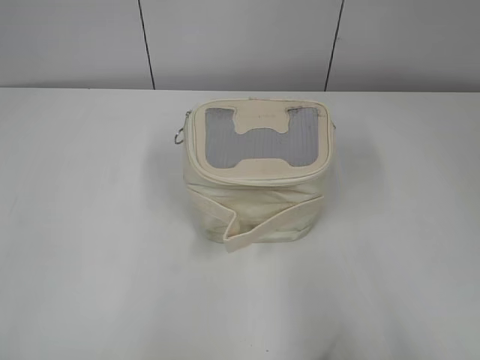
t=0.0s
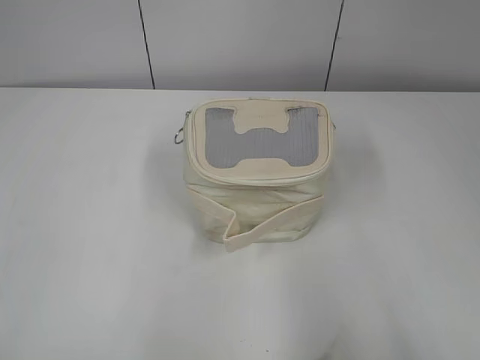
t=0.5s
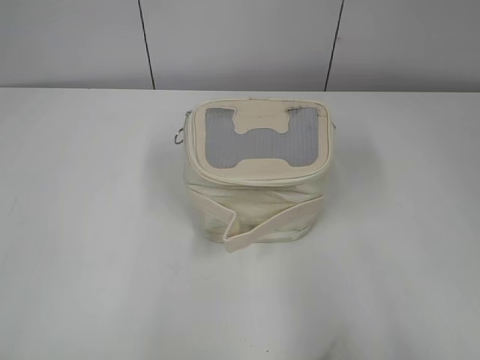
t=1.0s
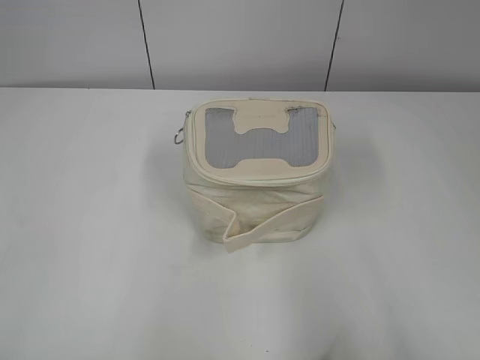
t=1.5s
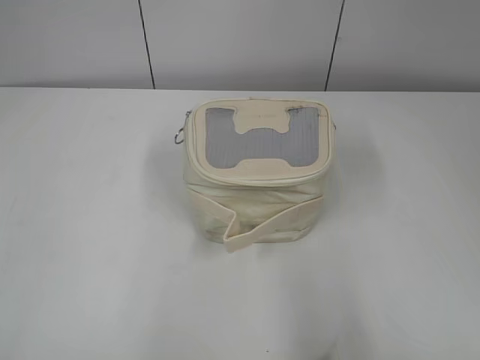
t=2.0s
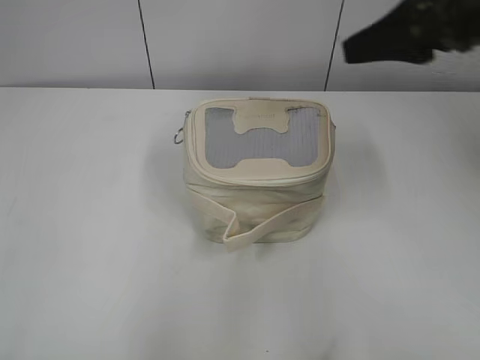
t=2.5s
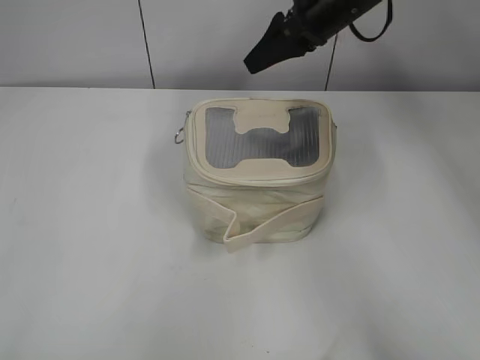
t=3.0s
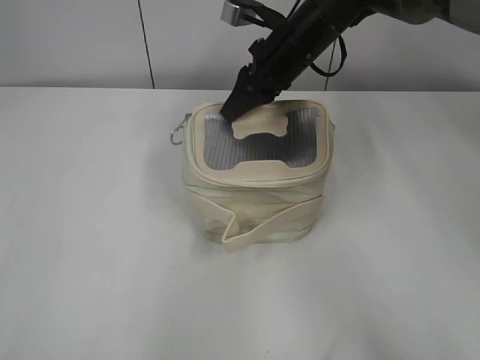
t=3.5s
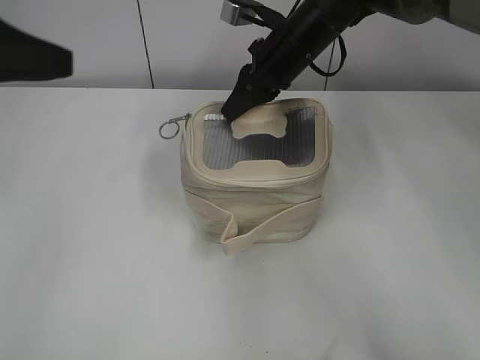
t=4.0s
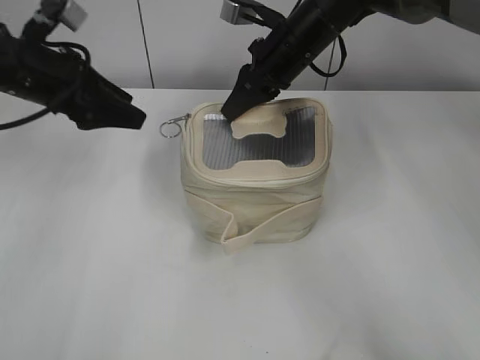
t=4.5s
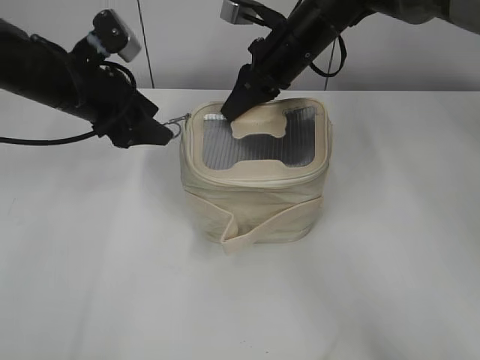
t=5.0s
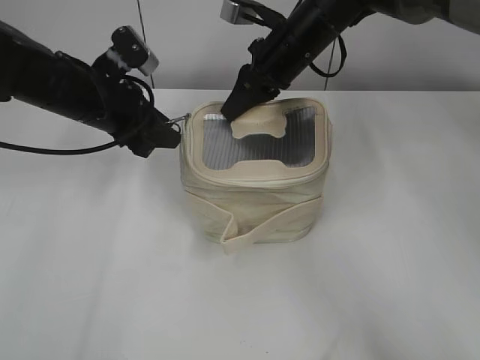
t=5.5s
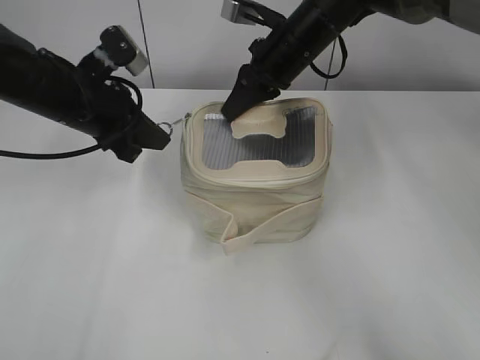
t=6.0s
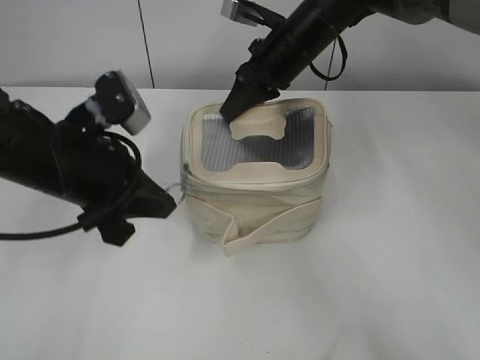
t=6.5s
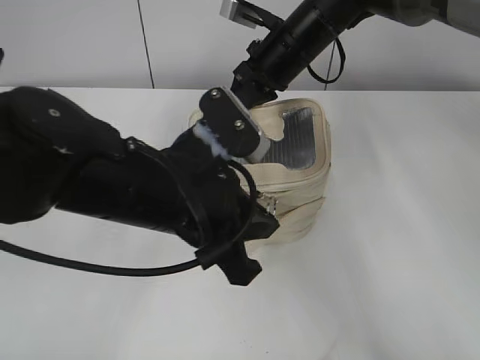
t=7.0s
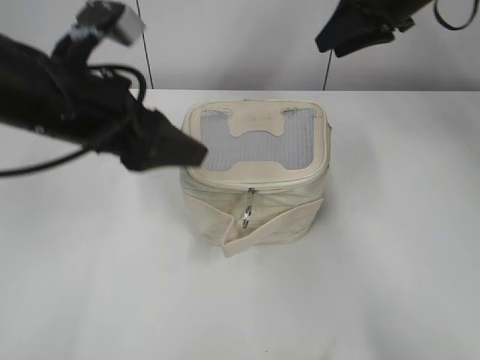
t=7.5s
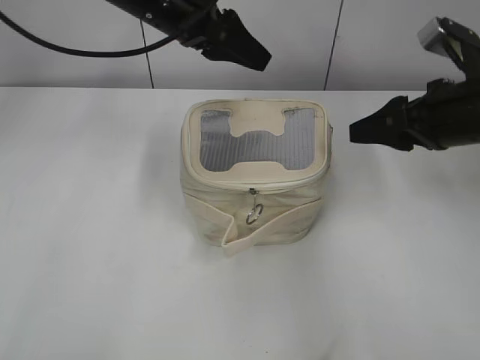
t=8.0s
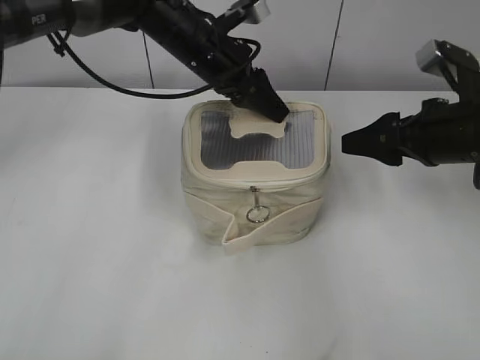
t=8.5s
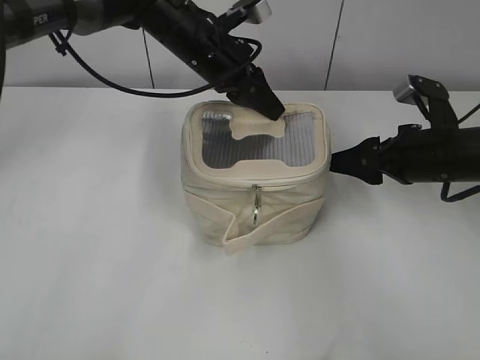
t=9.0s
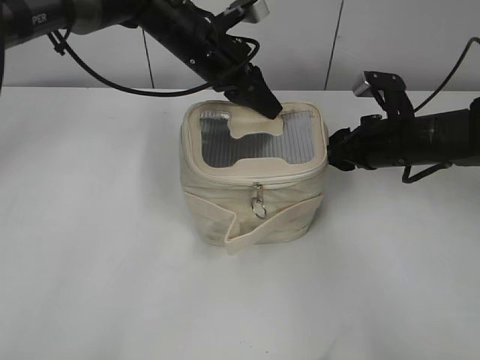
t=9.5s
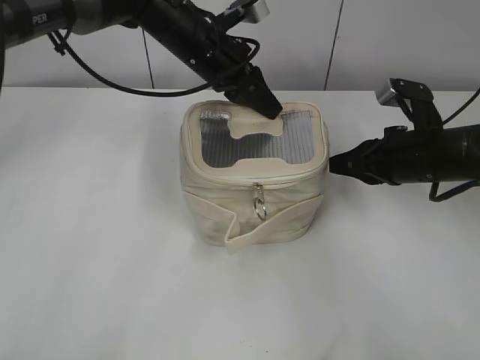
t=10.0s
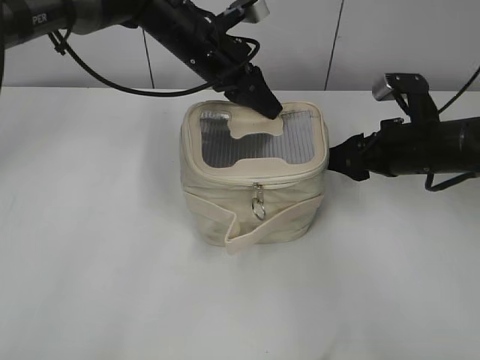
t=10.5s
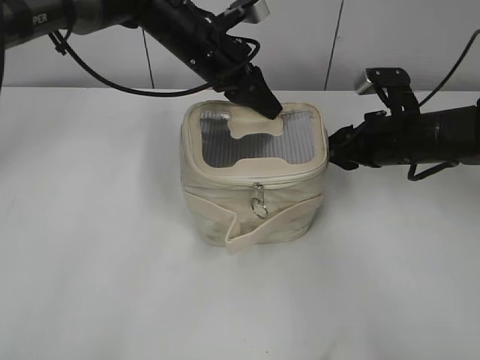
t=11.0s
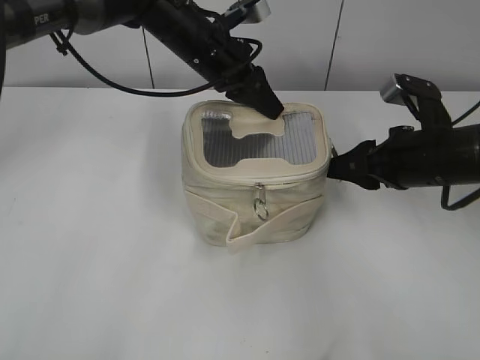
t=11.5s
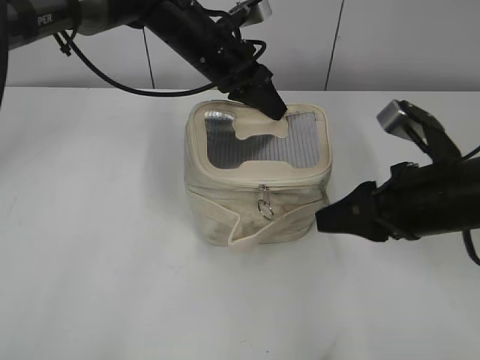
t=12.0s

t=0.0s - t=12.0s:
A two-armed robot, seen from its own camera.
Step, t=0.0s - t=7.0s: Zip up the bag with your left hand.
t=2.0s - t=4.0s: The right gripper is displaced forward and to the left by about 50 cm, and closes up, while the left gripper travels forward by approximately 20 cm.
t=4.0s - t=6.0s: The left gripper goes approximately 20 cm forward, downward and to the right, and closes.
t=6.0s - t=8.0s: The right gripper moves to the right and backward, about 20 cm, and opens its fingers; the left gripper goes about 15 cm to the right and upward, reaches approximately 15 cm backward, then returns, and opens its fingers.
t=8.0s - t=10.0s: The two grippers go roughly 5 cm downward. The left gripper closes up, while the right gripper closes.
t=10.0s - t=12.0s: The right gripper moves backward, some 10 cm, and opens up.

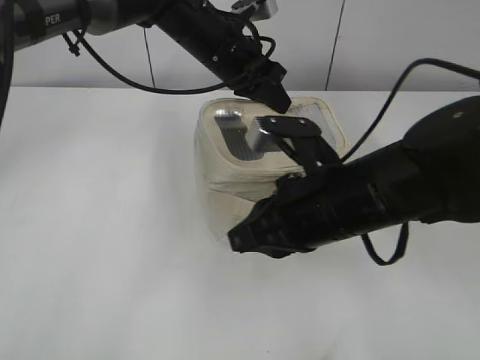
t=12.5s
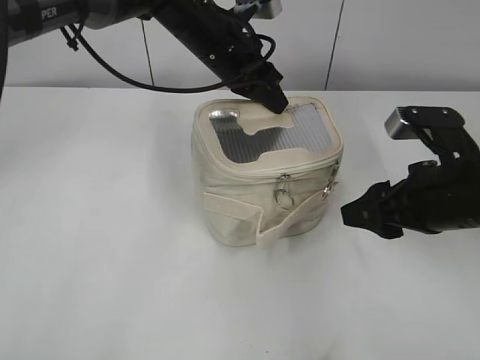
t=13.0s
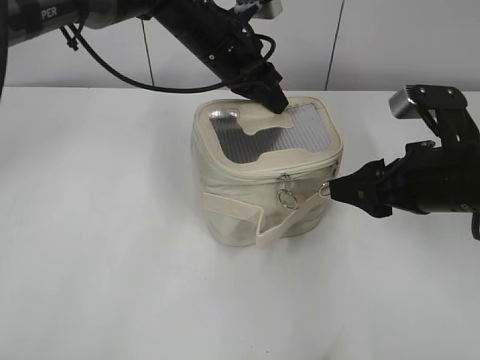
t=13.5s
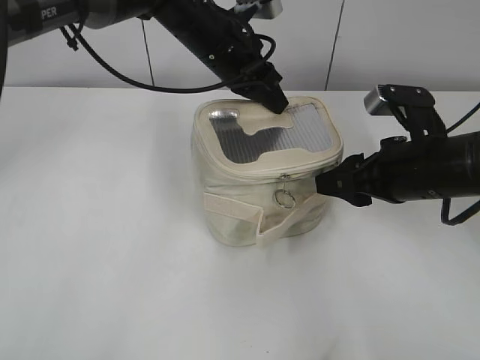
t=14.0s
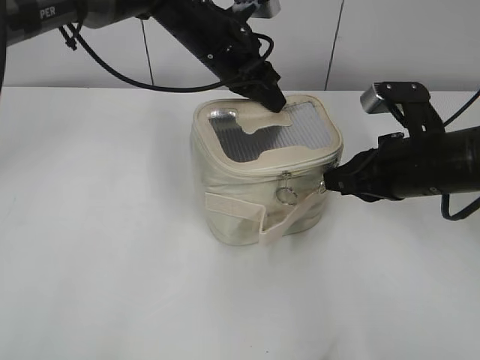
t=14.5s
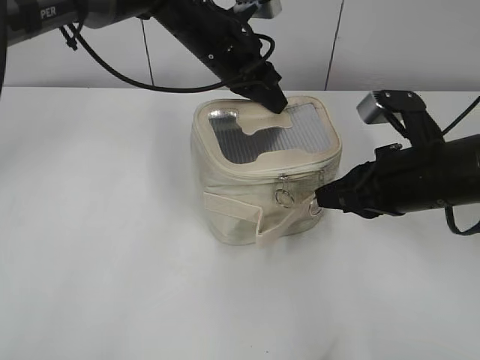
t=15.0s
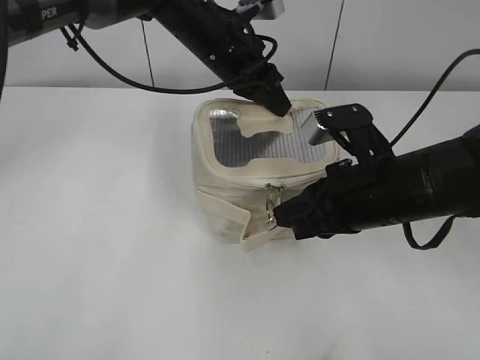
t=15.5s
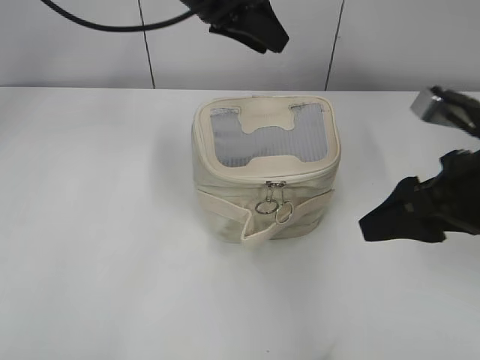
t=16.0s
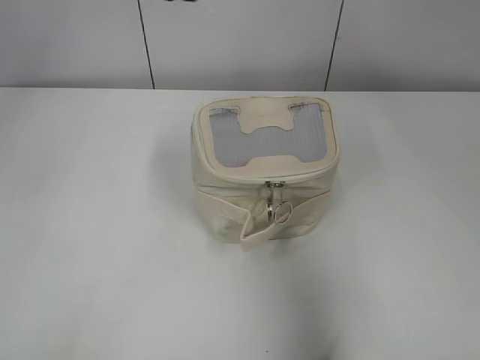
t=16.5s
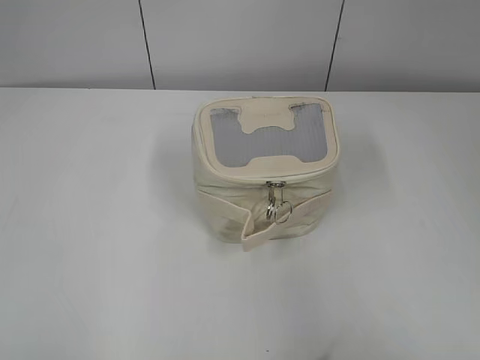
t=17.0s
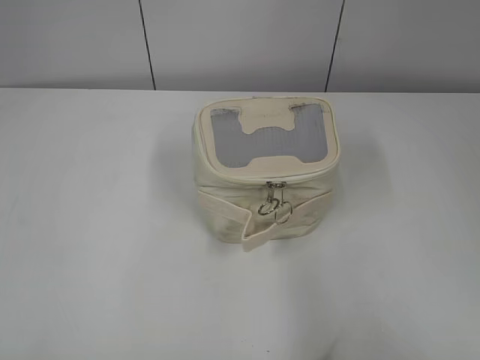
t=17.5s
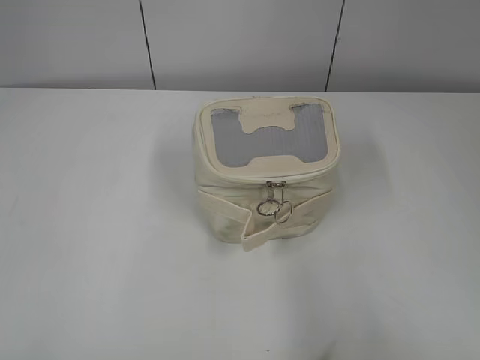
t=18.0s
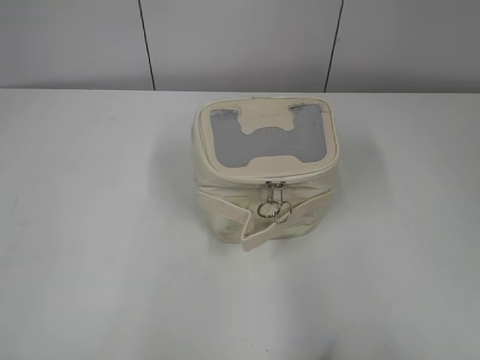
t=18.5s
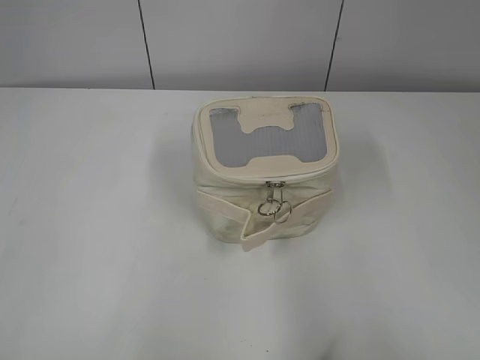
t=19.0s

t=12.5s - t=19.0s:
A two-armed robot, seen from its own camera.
Step, t=12.5s - t=15.5s: Zip up the bag with your right hand.
t=12.5s - t=14.5s: The right gripper goes some 10 cm to the right and forward, and opens and closes again.
t=14.5s - t=17.0s: The right gripper travels backward and upward by approximately 30 cm, and opens; the left gripper shifts about 50 cm backward and to the left, and opens.

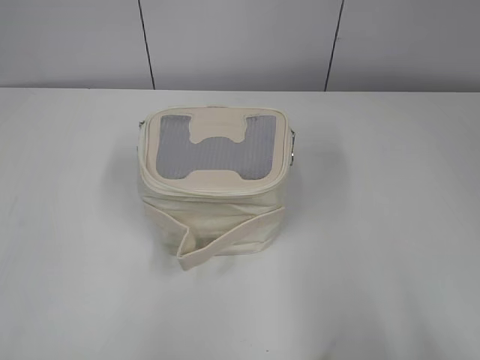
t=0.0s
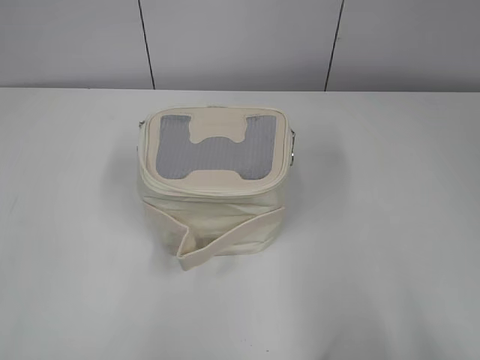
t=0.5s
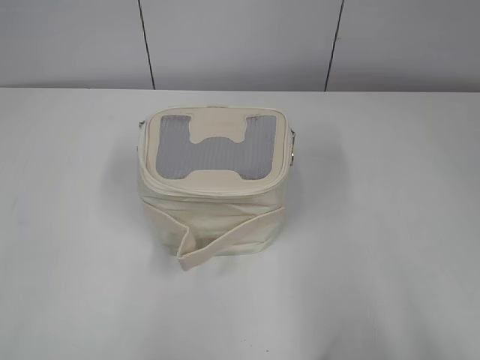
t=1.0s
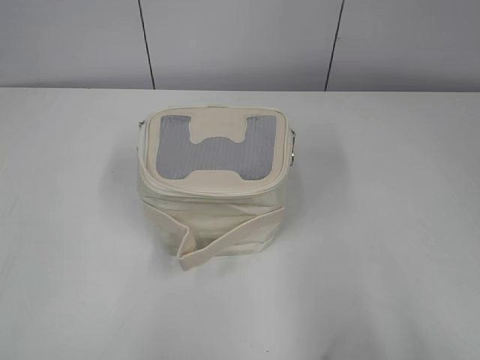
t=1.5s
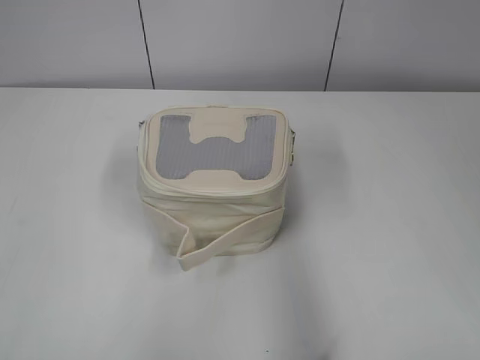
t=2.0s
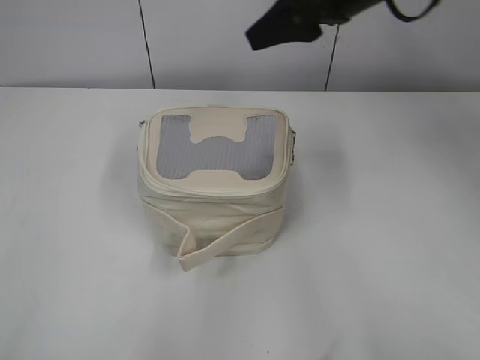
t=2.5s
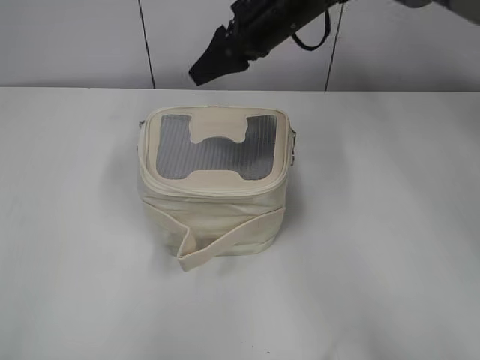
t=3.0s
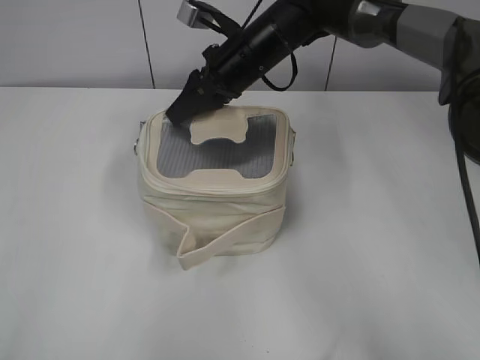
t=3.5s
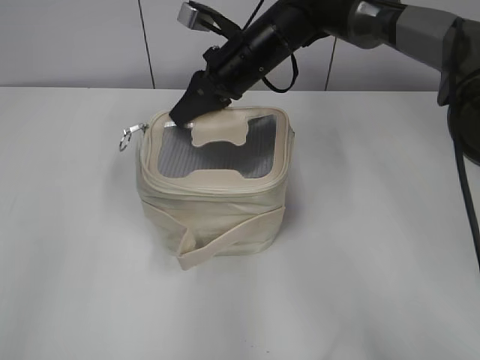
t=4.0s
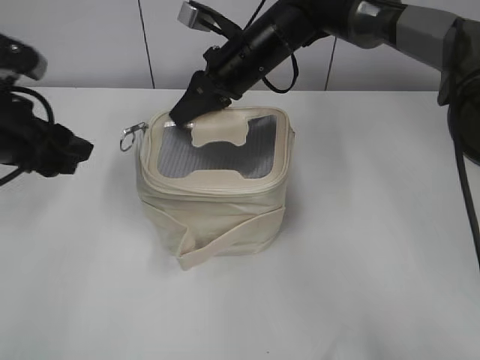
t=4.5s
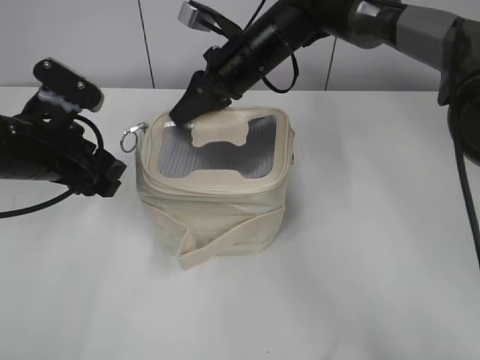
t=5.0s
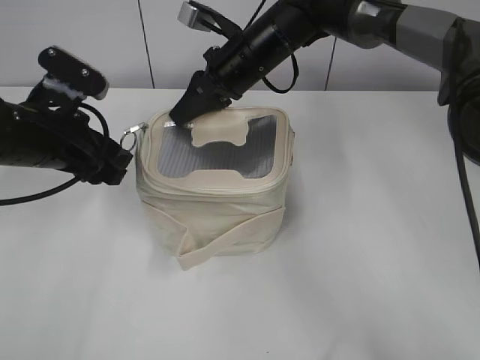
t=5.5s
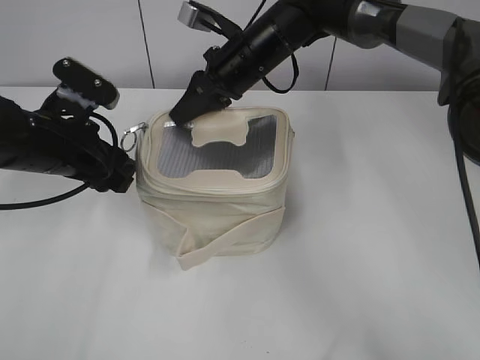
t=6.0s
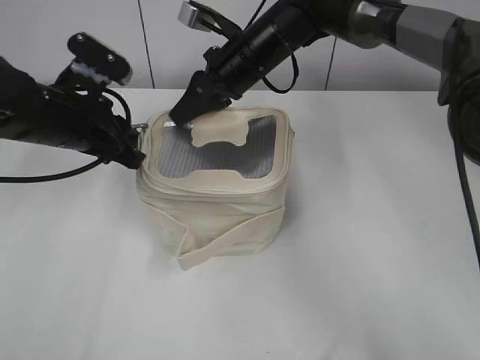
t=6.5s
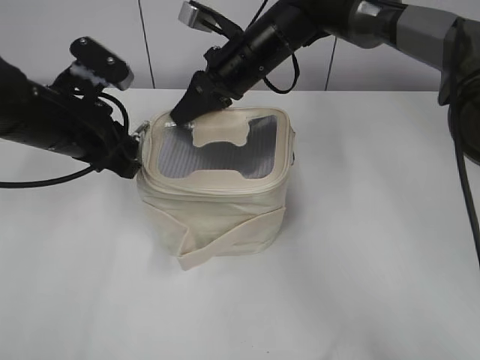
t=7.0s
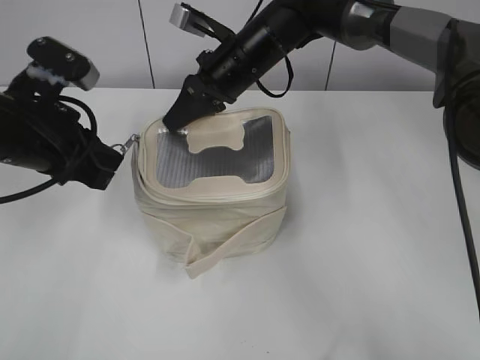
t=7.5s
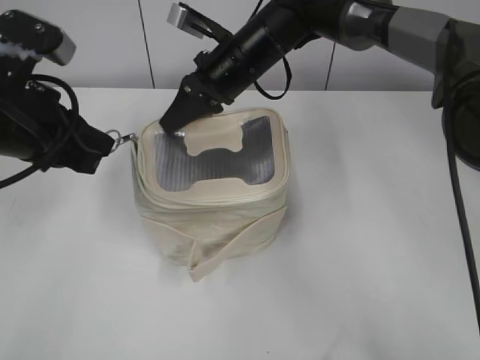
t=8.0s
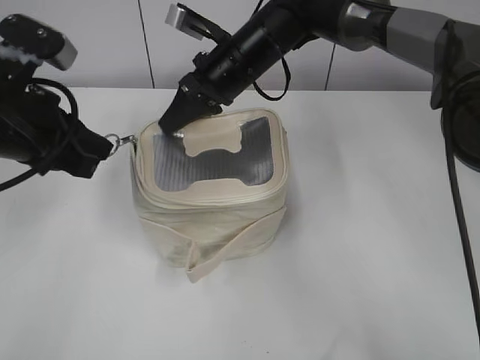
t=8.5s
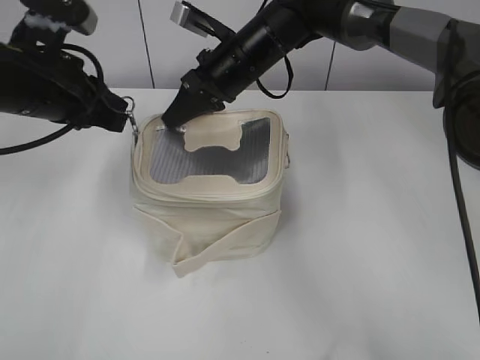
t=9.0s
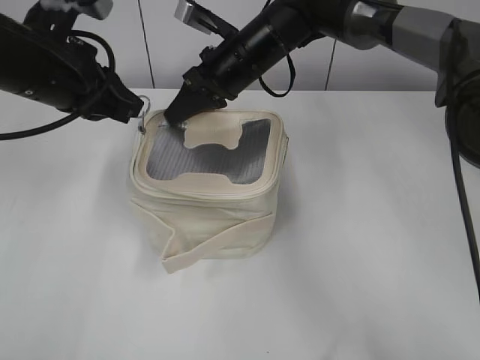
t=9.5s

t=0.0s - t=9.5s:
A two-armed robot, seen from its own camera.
t=2.0s - t=4.0s: The left gripper is displaced forward by approximately 10 cm; the right gripper goes some 40 cm forward, to the left and downward, and closes its fingers.
t=4.0s - t=5.5s: The left gripper is displaced forward, downward and to the right by about 25 cm.
t=5.5s - t=7.5s: The left gripper closes its fingers.
t=7.5s - t=9.5s: The left gripper shifts by approximately 5 cm.
